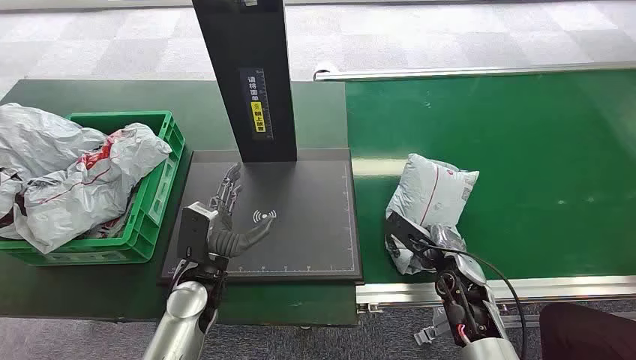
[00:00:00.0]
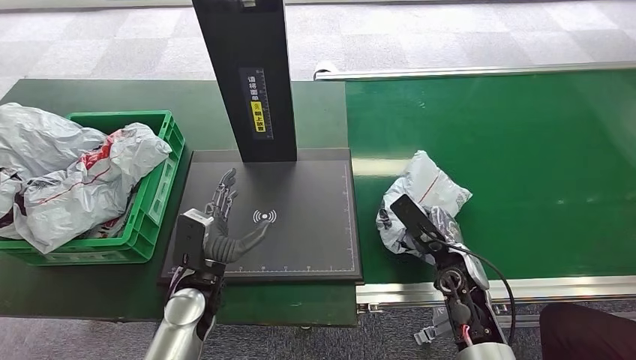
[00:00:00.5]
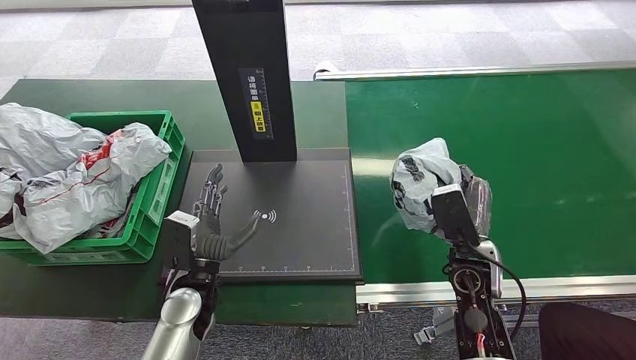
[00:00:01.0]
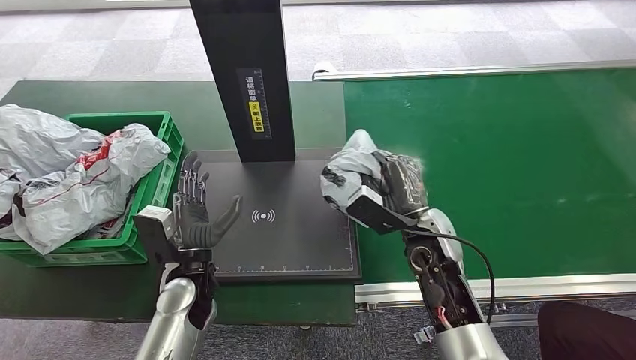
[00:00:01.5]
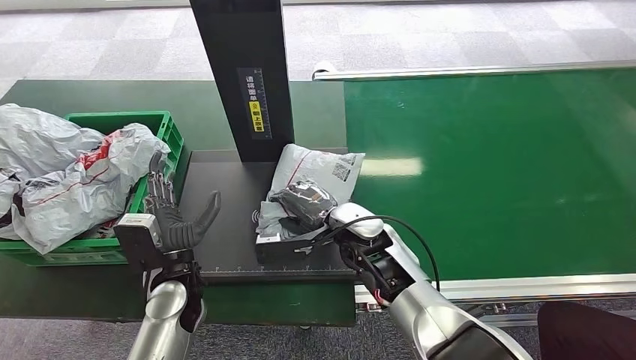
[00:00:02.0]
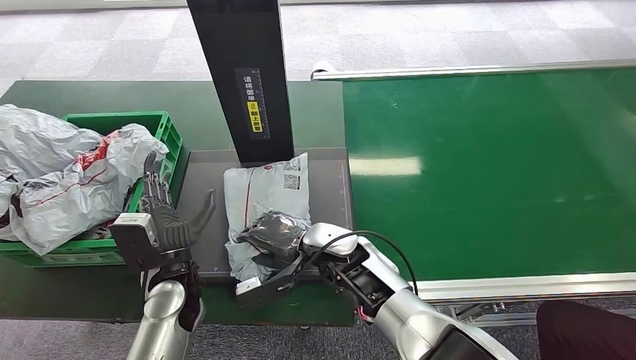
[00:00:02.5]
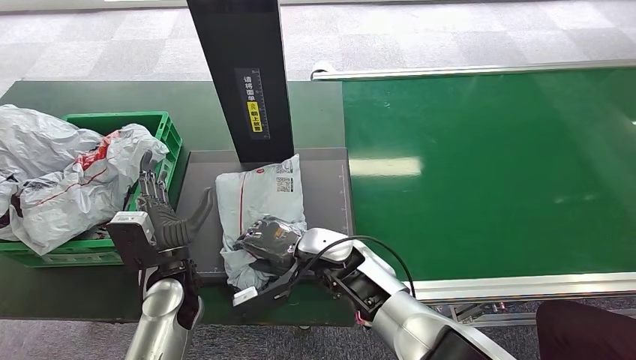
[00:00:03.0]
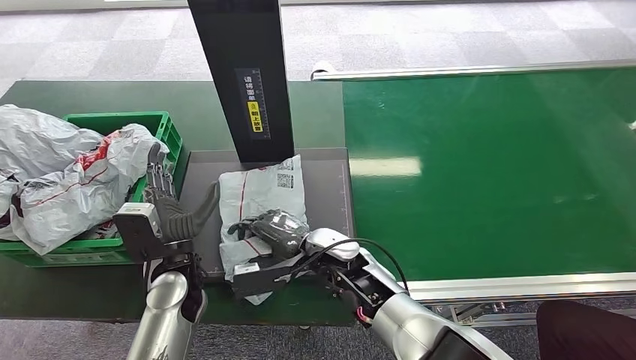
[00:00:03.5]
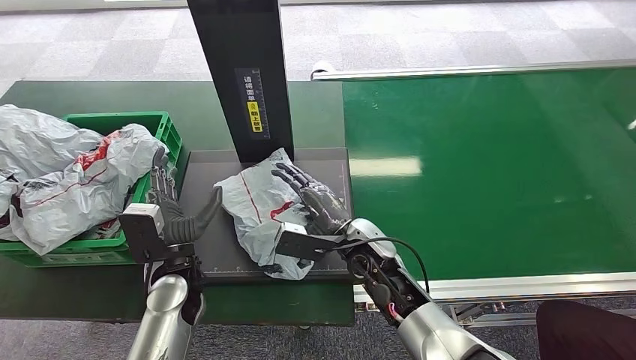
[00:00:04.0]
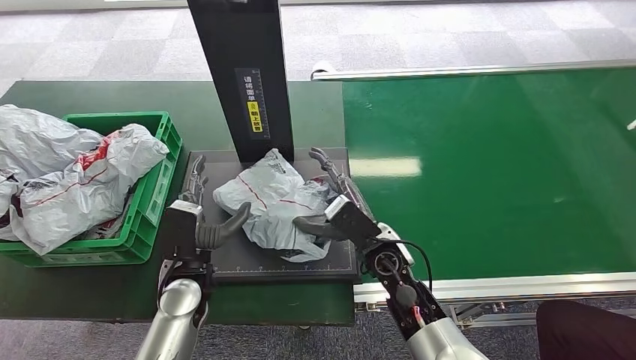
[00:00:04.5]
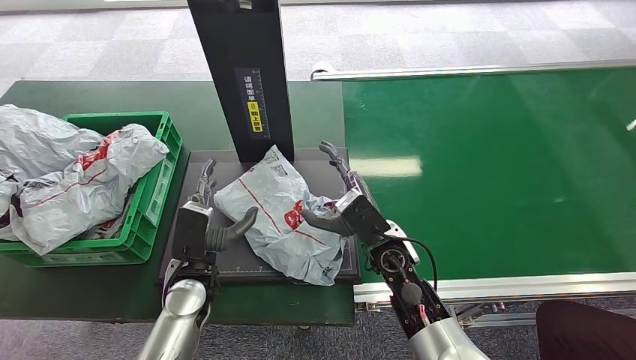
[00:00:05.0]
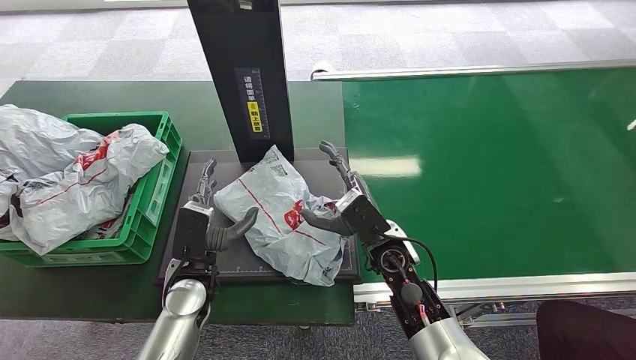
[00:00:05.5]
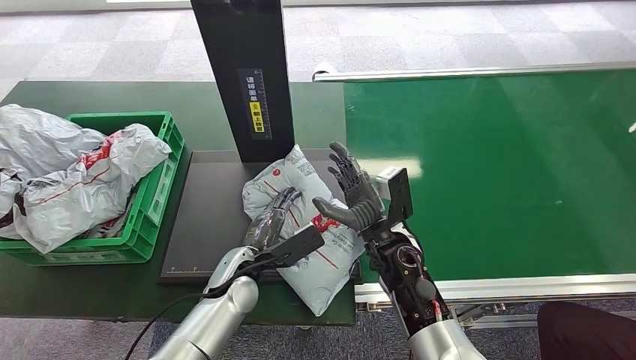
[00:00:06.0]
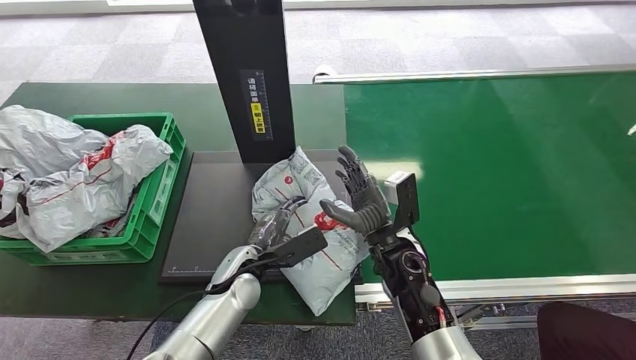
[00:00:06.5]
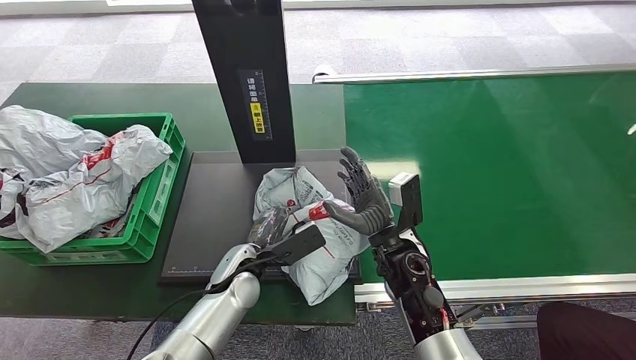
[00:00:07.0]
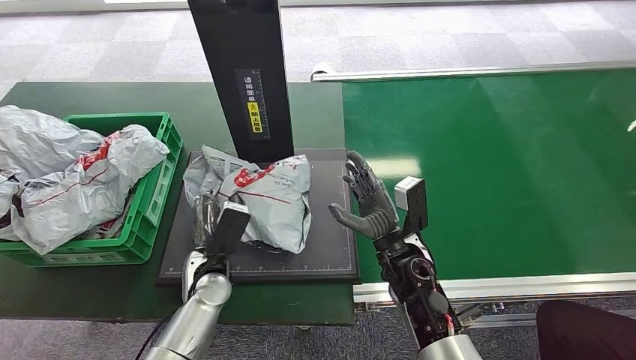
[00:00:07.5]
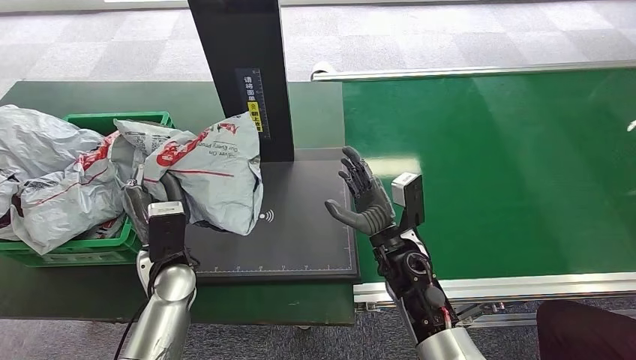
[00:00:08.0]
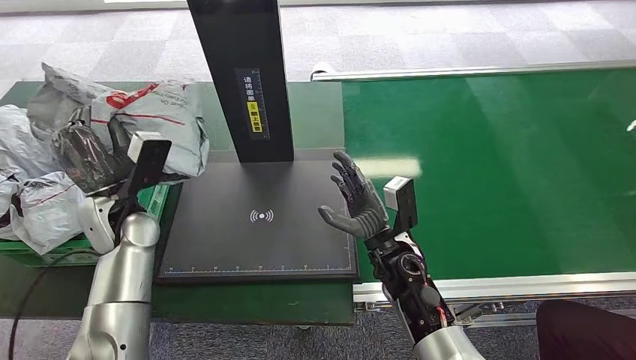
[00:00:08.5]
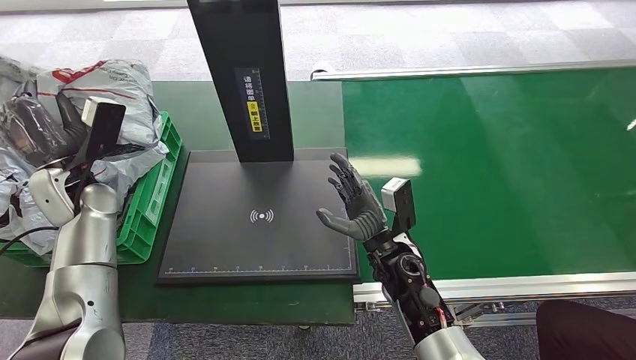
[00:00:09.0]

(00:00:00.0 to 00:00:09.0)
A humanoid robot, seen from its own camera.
Step, 00:00:00.0 - 00:00:01.0: Pick up the package from the conveyor belt.
Step, 00:00:01.5 - 00:00:04.5: Place the package onto the inbound machine.
Step, 00:00:05.0 - 00:00:08.0: Pick up the package from the inbound machine.
00:00:02.0 - 00:00:04.5: The right hand shifts by approximately 5 cm.

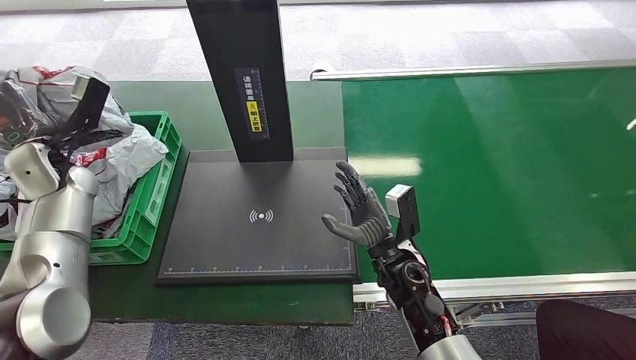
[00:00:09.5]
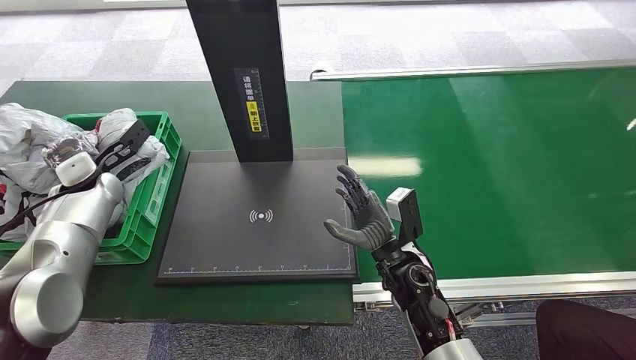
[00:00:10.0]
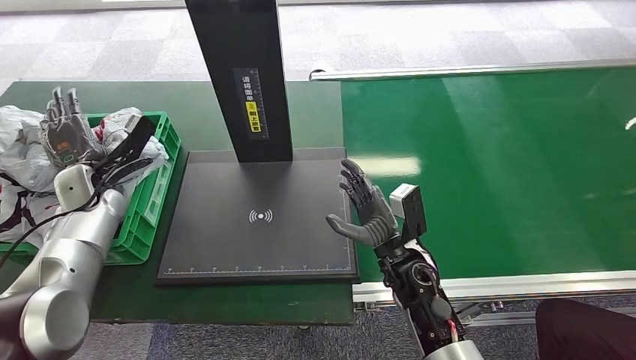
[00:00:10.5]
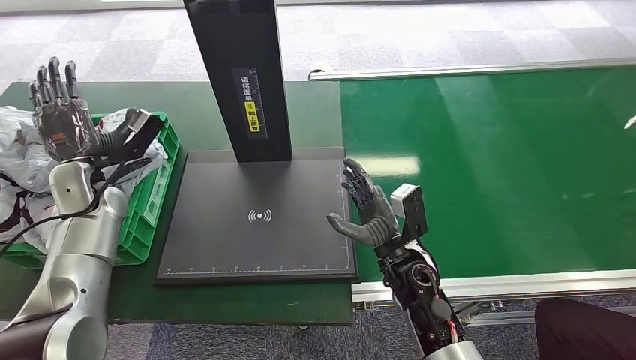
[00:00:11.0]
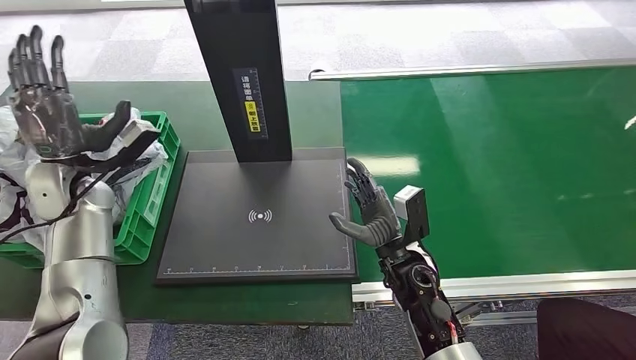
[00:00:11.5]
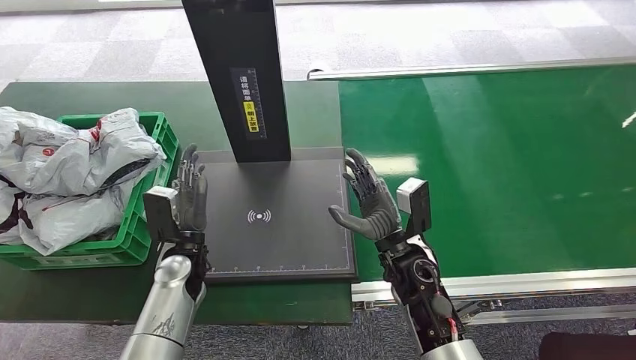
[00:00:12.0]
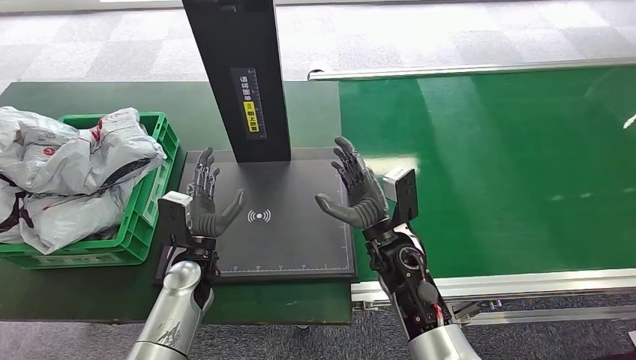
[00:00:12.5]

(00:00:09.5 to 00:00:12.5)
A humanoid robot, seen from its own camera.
Step, 00:00:09.5 - 00:00:12.5: Place the package into the parcel locker.
00:00:09.5 - 00:00:11.0: The left hand shifts by approximately 5 cm.
